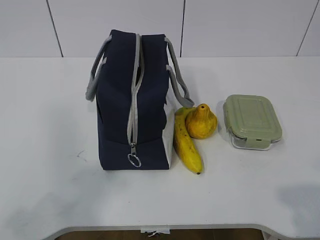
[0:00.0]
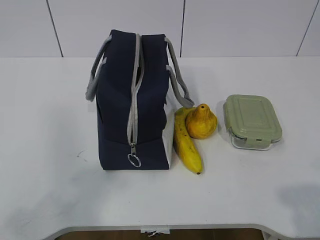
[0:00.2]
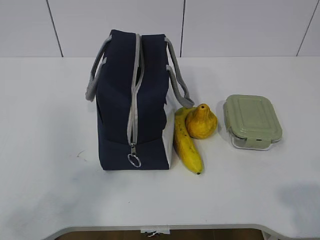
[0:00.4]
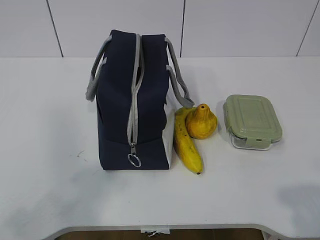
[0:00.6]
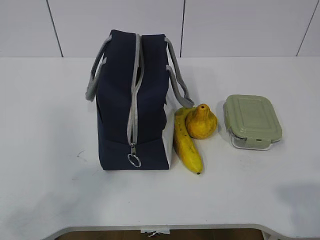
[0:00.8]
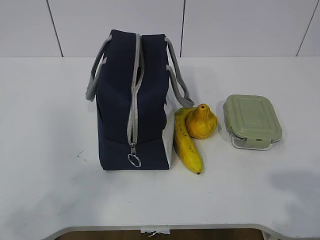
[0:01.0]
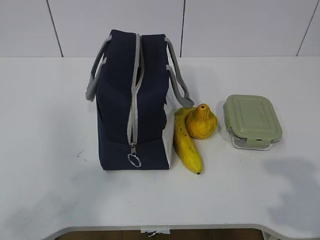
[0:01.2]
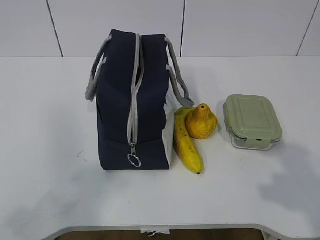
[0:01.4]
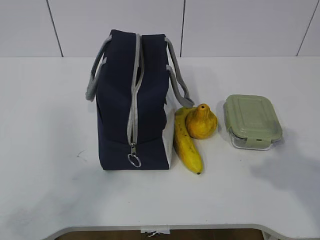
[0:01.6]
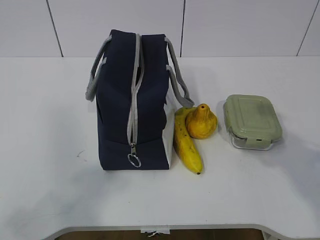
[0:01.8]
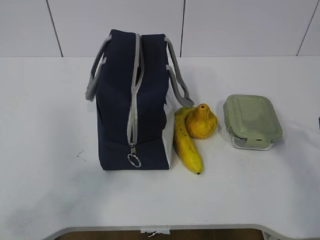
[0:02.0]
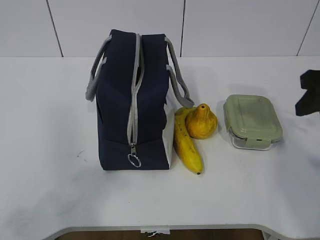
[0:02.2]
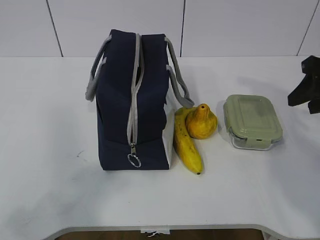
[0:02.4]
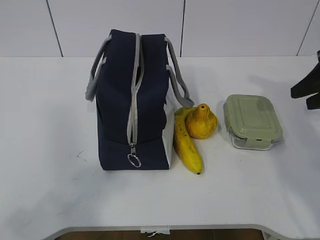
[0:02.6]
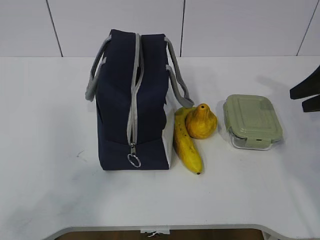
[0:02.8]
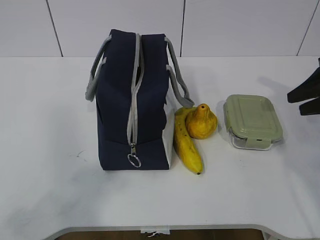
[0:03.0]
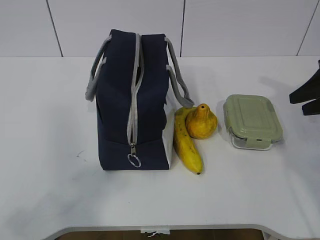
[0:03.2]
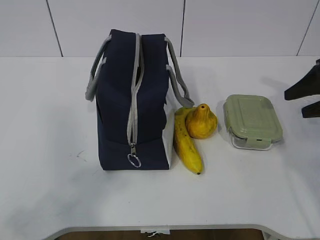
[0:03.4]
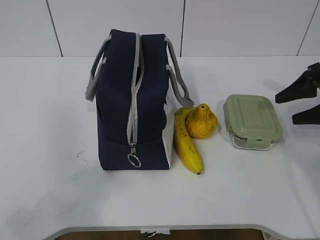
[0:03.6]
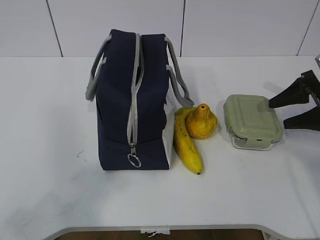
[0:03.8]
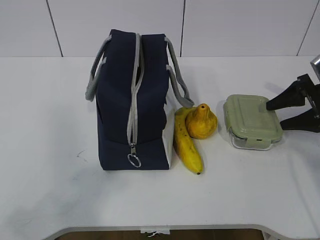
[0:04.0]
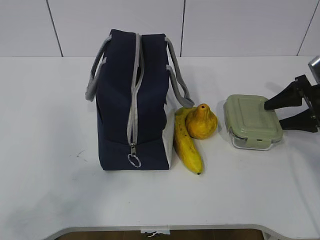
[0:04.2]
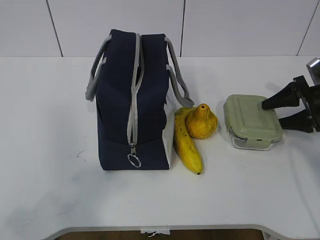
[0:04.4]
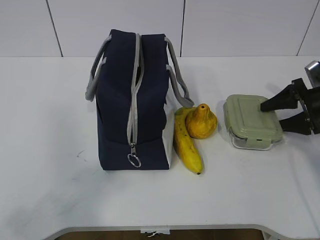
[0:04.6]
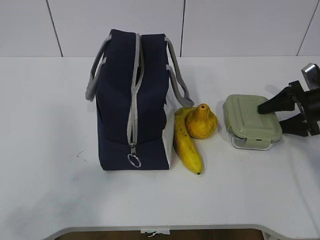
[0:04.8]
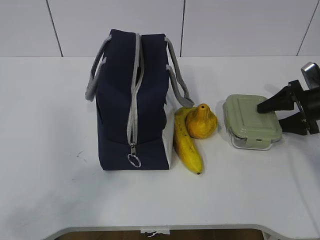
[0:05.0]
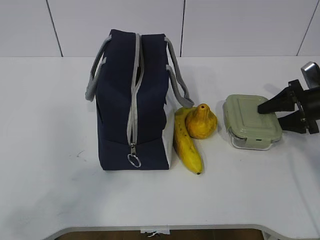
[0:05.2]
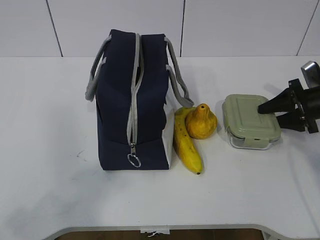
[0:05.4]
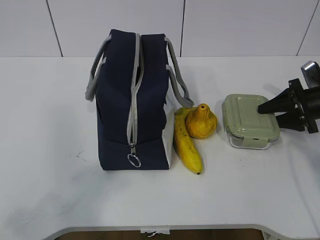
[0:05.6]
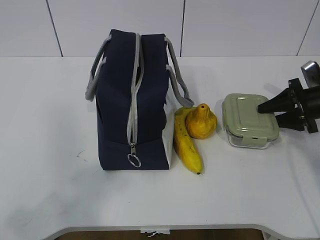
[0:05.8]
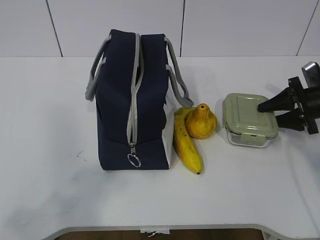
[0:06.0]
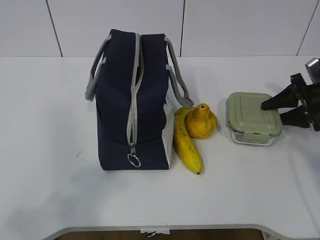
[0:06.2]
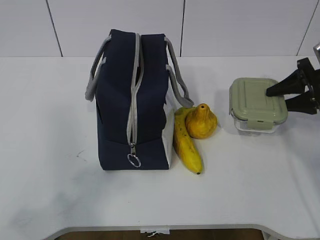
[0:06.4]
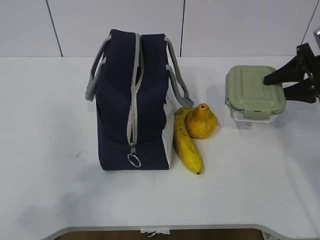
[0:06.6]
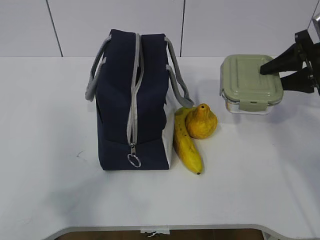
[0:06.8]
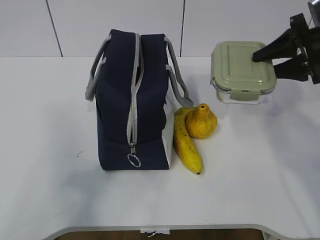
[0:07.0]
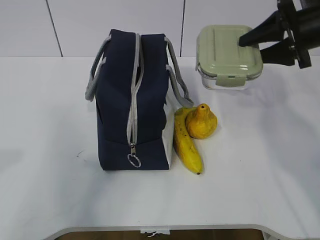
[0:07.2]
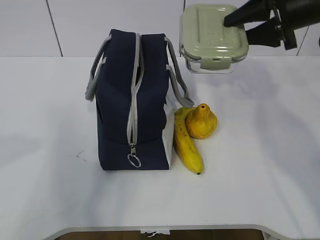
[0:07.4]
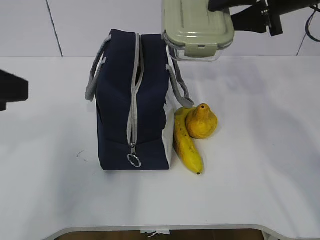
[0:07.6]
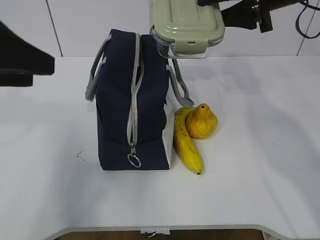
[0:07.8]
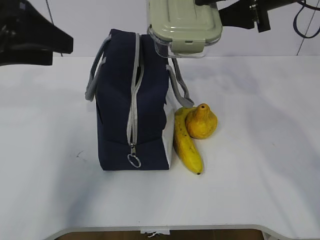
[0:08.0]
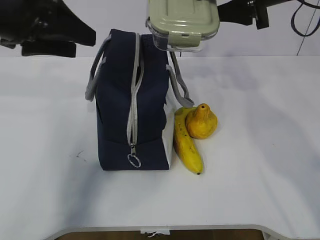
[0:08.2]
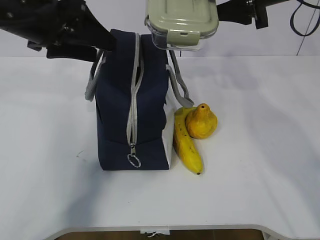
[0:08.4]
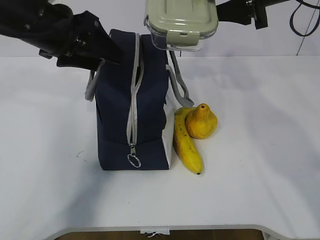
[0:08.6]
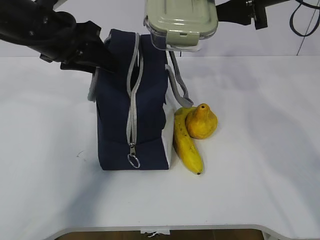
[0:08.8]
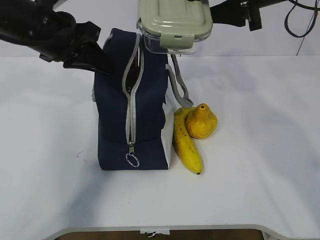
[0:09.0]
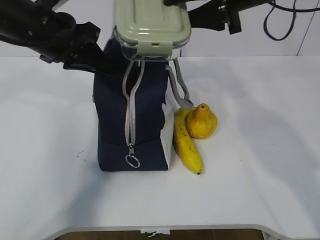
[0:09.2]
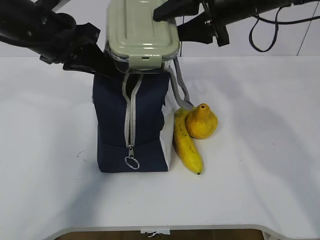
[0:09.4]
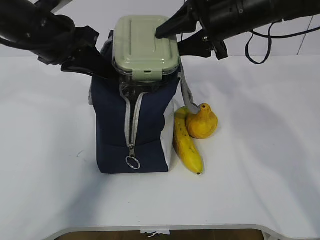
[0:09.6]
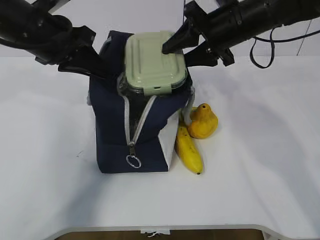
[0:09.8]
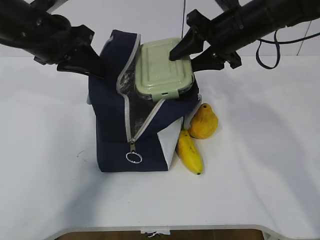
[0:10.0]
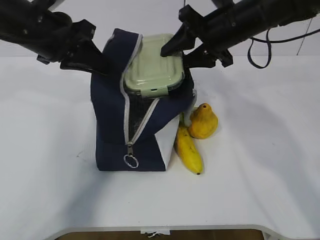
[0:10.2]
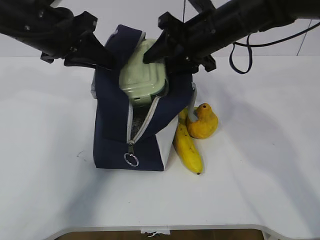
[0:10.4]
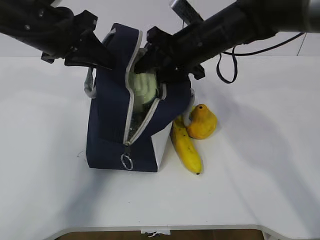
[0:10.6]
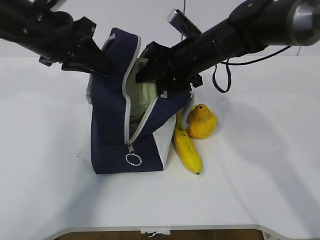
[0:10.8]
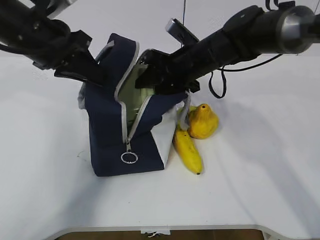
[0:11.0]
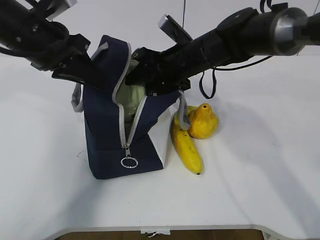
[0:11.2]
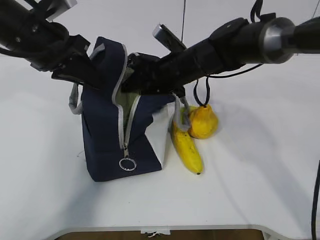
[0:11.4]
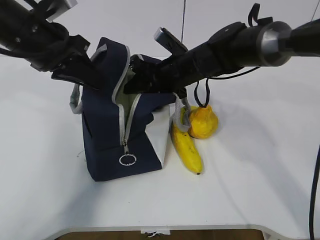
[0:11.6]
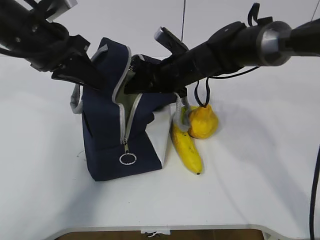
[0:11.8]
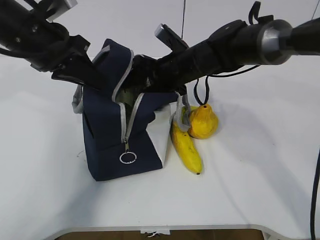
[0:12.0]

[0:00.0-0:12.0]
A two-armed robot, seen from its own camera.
Step, 0:00.0 to 0:05.4: Grasp the box with the right gripper.
0:01.6 to 0:03.0: The right gripper heads forward, covering roughly 20 cm.
0:03.0 to 0:04.4: The right gripper shifts approximately 10 cm downward and forward.
0:04.4 to 0:06.0: Both grippers stay put.
0:06.0 to 0:07.6: The right gripper travels upward and to the left by roughly 25 cm. Meanwhile the left gripper is displaced forward by roughly 20 cm, and opens up.
0:07.6 to 0:09.0: The left gripper heads forward and to the right, covering roughly 20 cm, and closes.
0:09.0 to 0:10.4: The right gripper shifts about 10 cm to the left and downward.
0:10.4 to 0:12.0: The right gripper heads downward, covering roughly 10 cm.

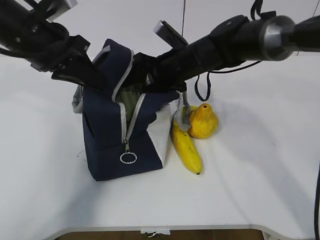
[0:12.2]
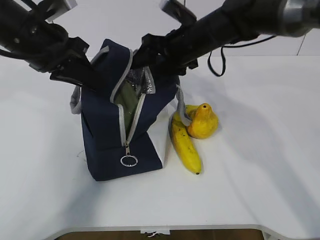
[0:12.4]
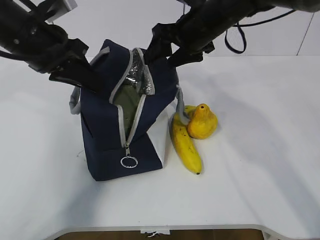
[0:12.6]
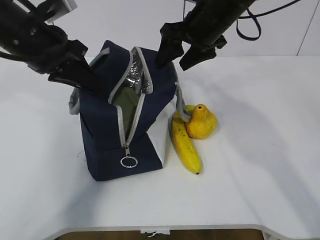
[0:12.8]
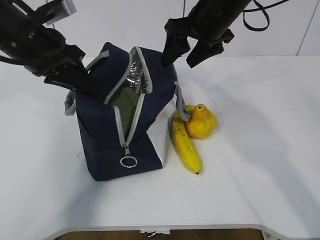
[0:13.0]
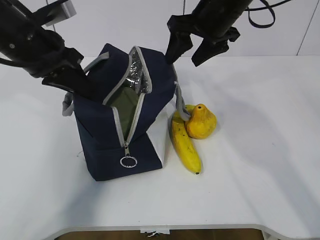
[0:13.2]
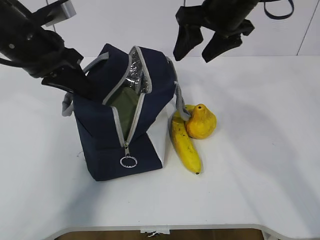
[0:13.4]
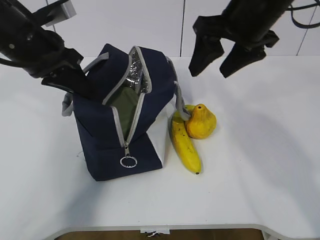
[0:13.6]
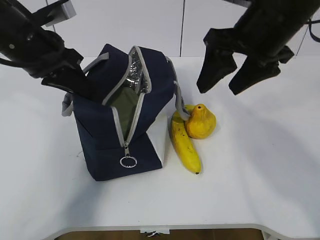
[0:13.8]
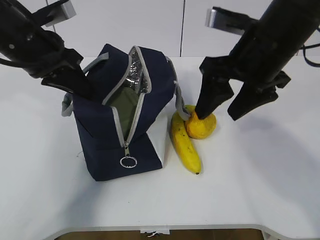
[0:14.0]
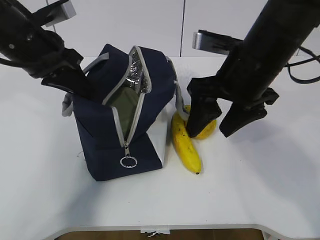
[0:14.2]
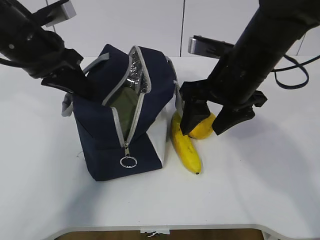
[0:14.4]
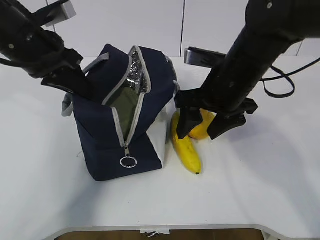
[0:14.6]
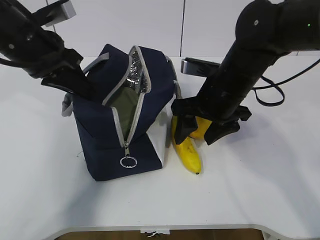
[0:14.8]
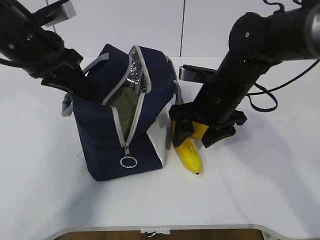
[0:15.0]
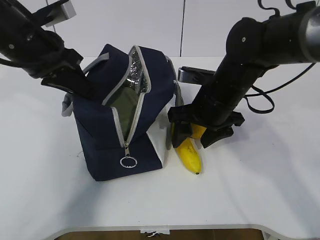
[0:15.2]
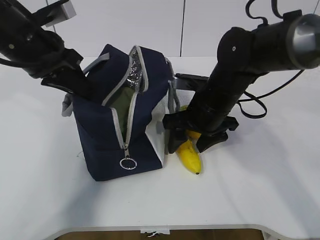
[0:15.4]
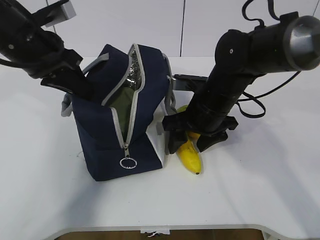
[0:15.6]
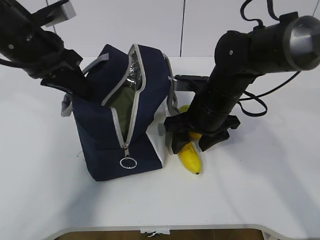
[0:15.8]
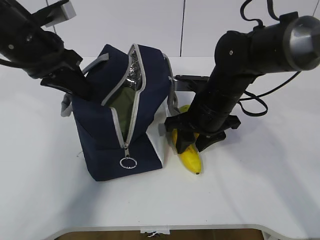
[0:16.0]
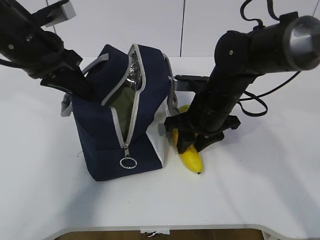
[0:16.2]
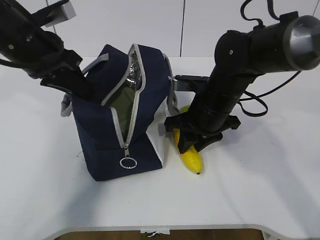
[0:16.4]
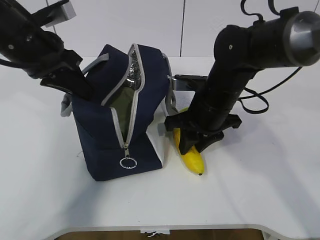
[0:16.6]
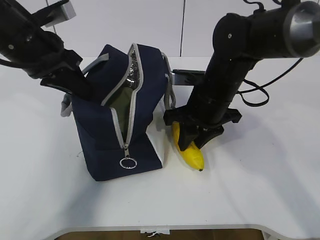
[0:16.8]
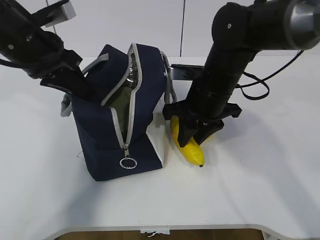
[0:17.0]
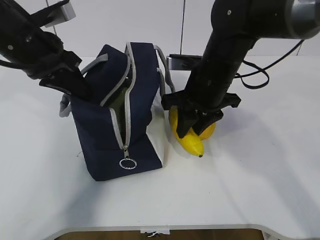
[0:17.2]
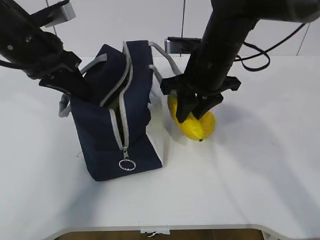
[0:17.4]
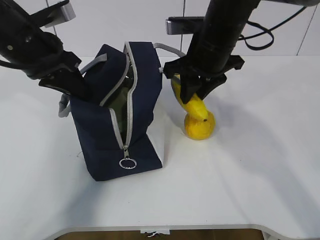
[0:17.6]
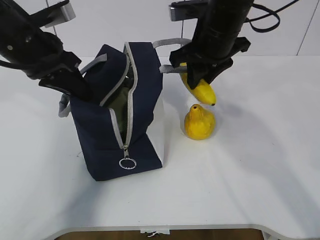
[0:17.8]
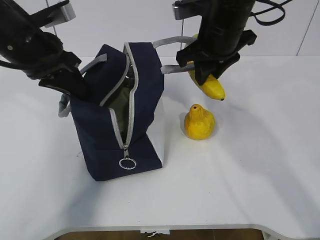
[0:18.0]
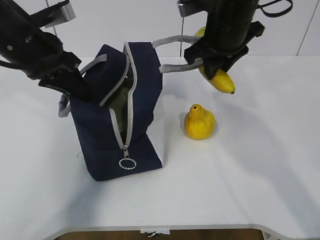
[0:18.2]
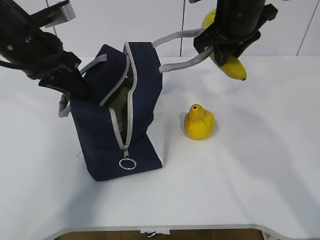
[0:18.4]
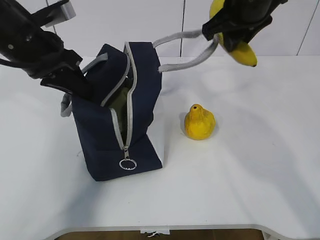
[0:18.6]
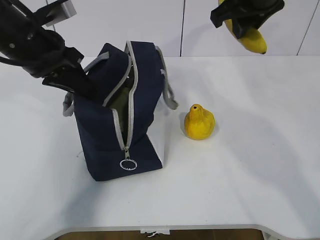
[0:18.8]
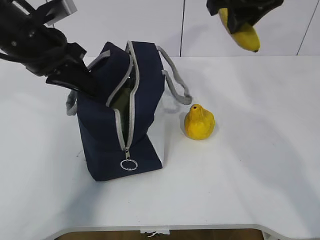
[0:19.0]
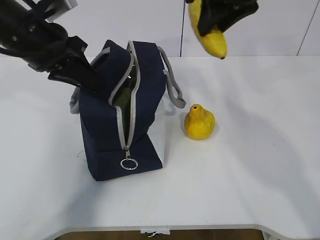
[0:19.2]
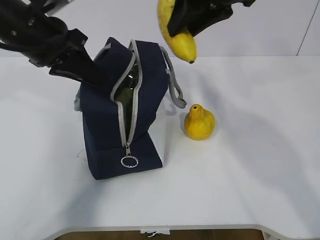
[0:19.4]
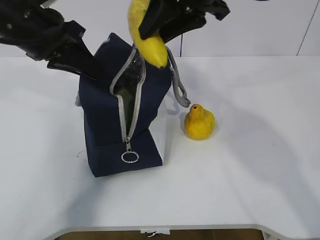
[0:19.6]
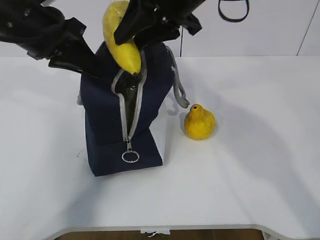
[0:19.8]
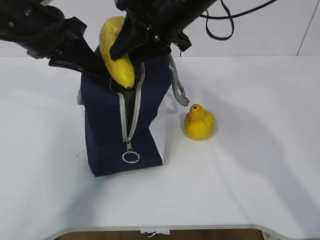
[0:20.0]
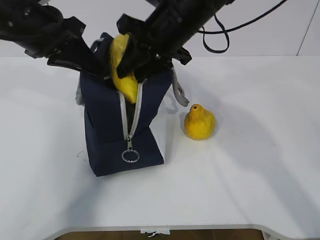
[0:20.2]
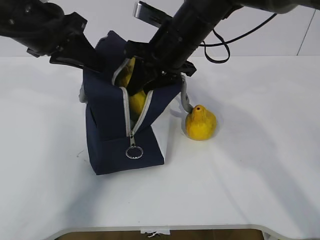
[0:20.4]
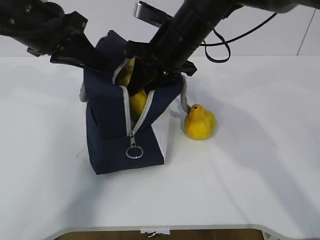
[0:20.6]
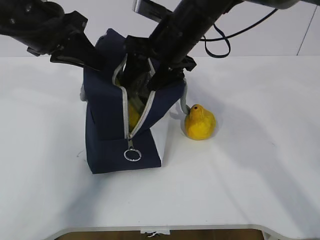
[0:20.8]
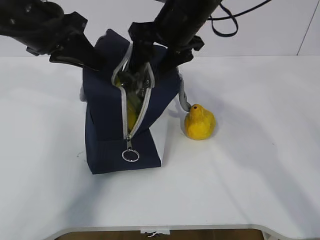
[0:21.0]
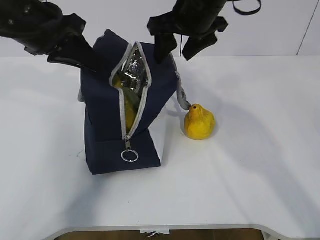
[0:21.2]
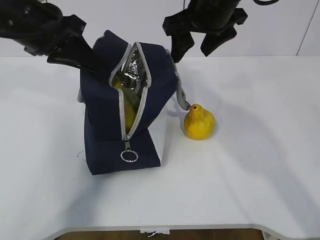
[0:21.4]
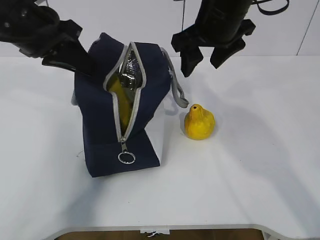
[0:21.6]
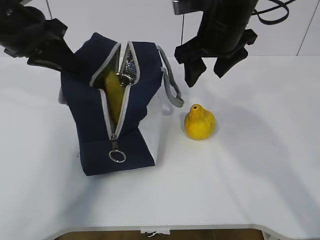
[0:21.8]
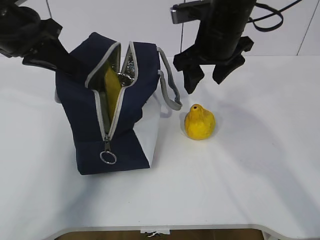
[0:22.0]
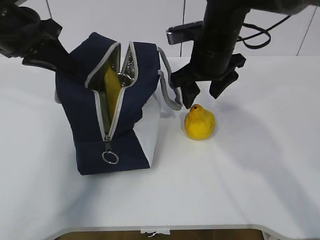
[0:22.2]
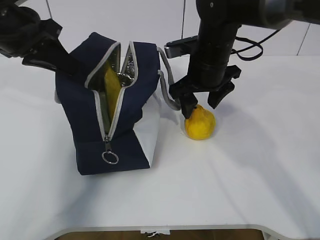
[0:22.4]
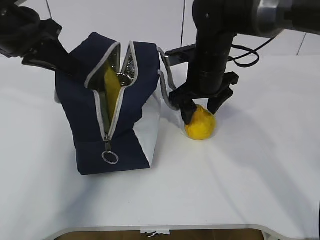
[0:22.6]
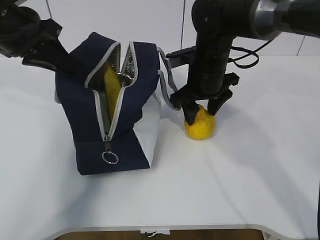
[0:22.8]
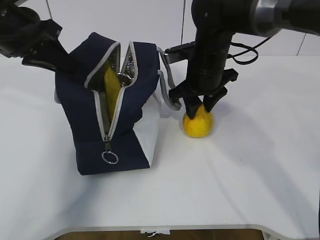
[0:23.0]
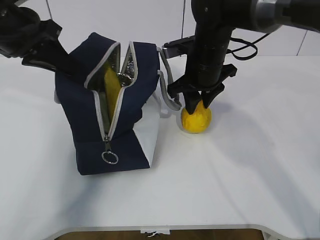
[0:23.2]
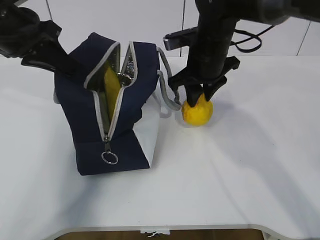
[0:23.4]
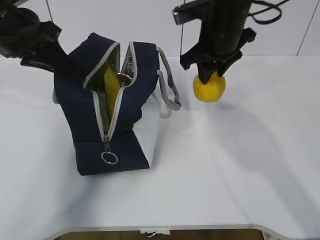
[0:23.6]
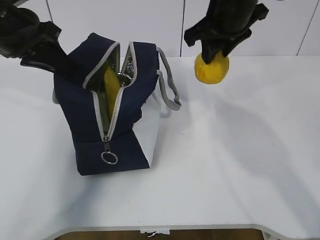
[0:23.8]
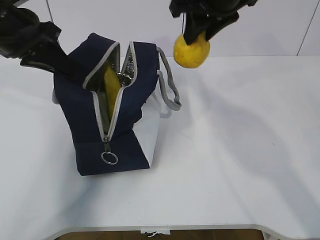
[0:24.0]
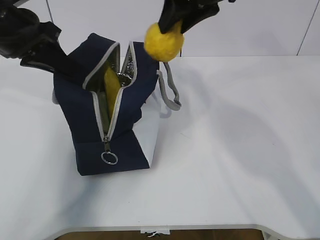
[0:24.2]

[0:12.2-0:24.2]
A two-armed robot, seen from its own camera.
Step, 0:12.6 to 0:16.4: Grasp the banana with the right gripper.
Step, 0:16.6 to 0:21.0: Place the banana into the package with the right gripper.
Step, 0:21.2 to 0:22.8: Grasp the pear with the right gripper.
0:12.2 to 0:13.8: The right gripper travels backward, upward and to the right by roughly 20 cm.
0:13.8 to 0:15.2: The right gripper is displaced downward by some 15 cm.
0:15.2 to 0:16.6: The right gripper closes up.
0:16.6 to 0:18.2: The right gripper heads upward, covering some 10 cm.
0:18.2 to 0:19.8: The right gripper moves to the left and upward, about 10 cm.
0:19.8 to 0:21.2: The right gripper opens.
0:21.2 to 0:22.6: The right gripper is displaced downward by some 10 cm.
0:22.6 to 0:24.2: The right gripper shifts some 15 cm upward, and closes its fingers.
